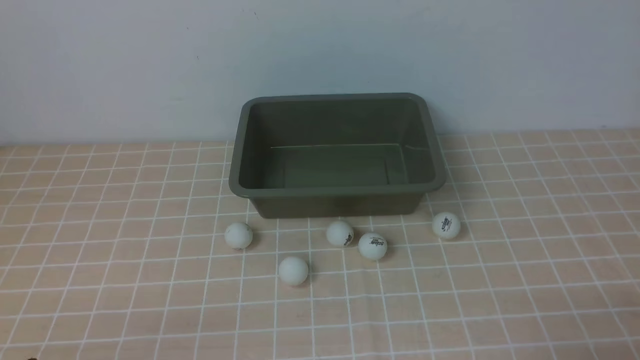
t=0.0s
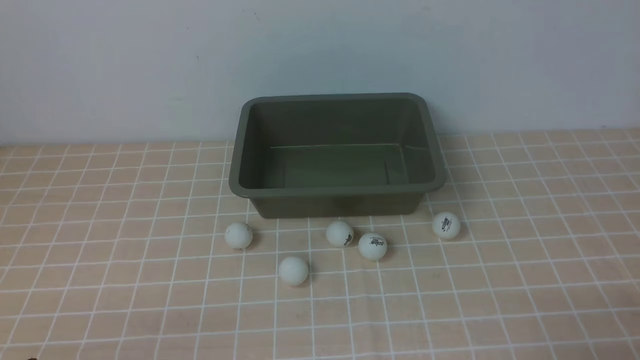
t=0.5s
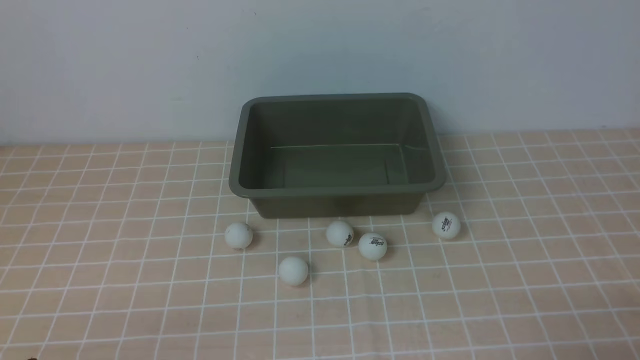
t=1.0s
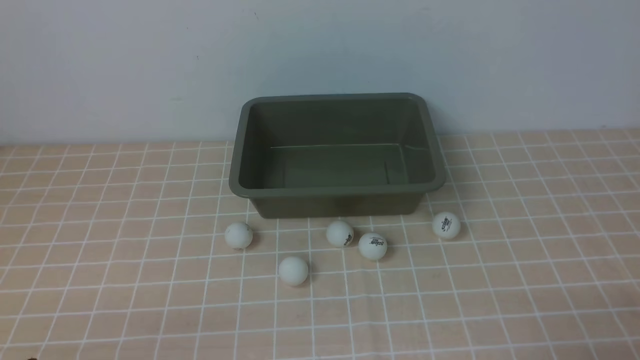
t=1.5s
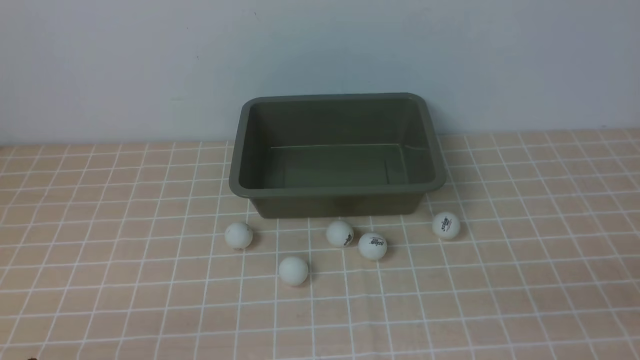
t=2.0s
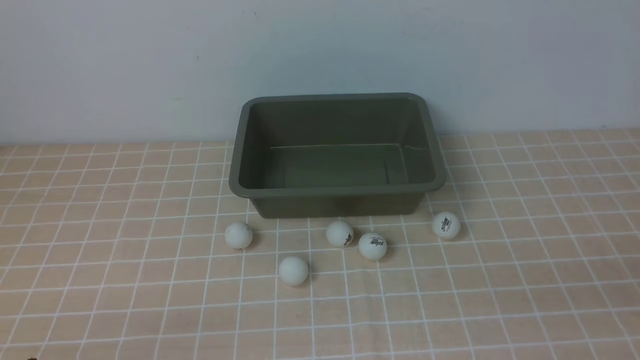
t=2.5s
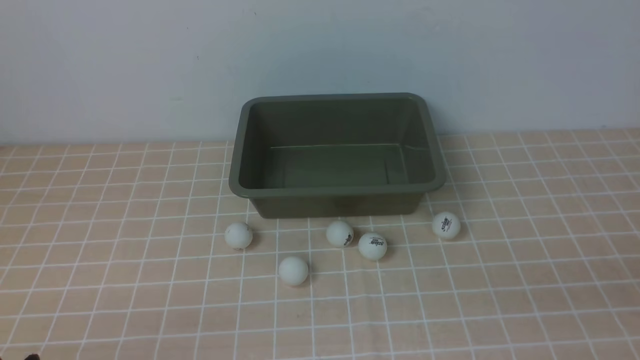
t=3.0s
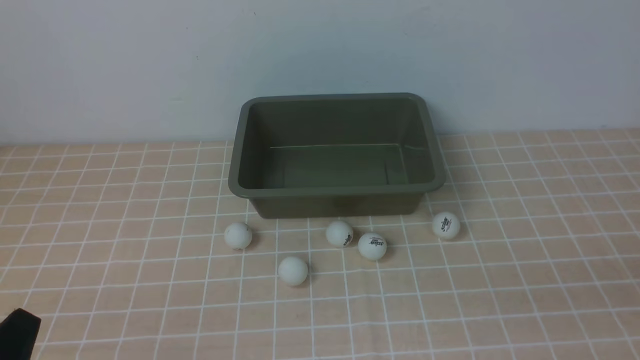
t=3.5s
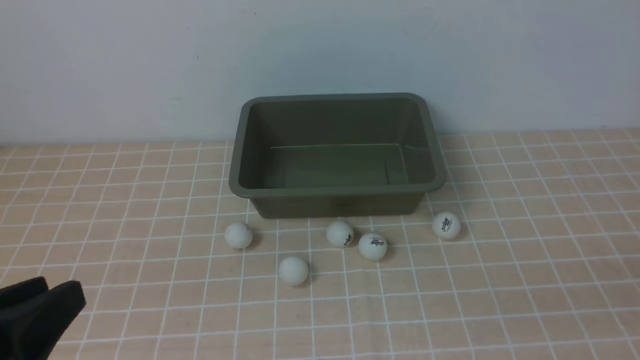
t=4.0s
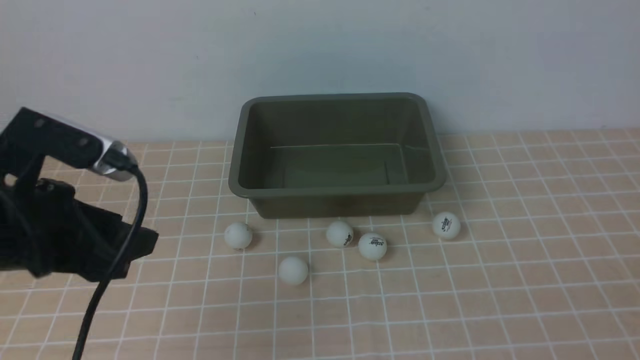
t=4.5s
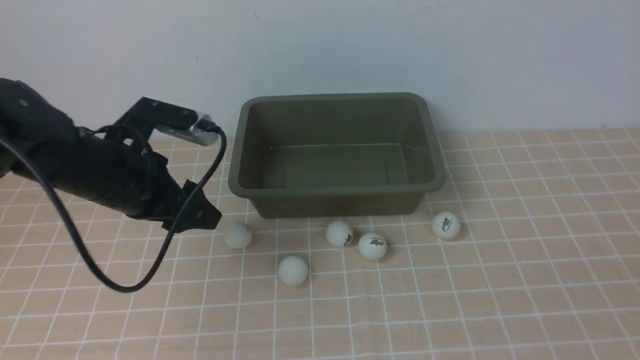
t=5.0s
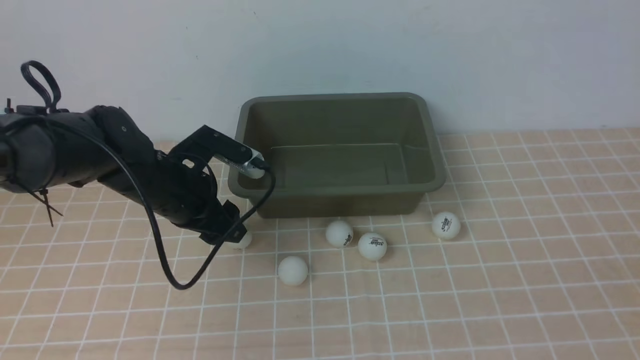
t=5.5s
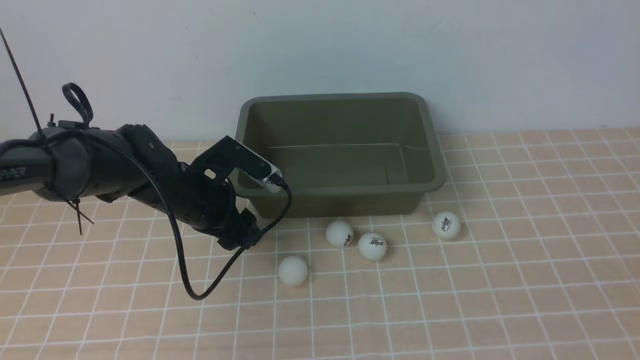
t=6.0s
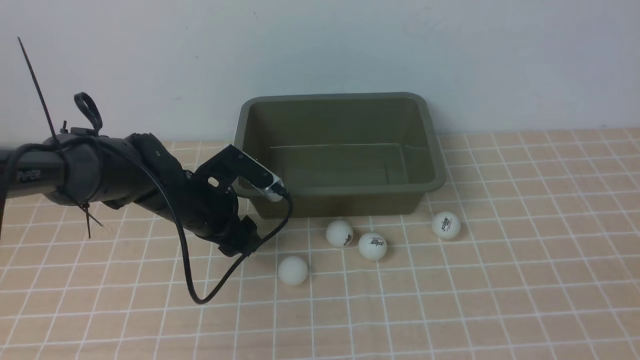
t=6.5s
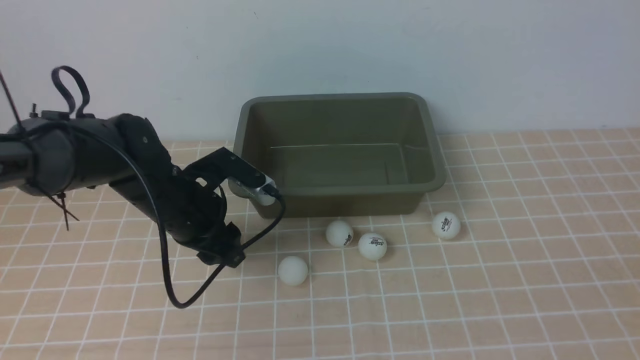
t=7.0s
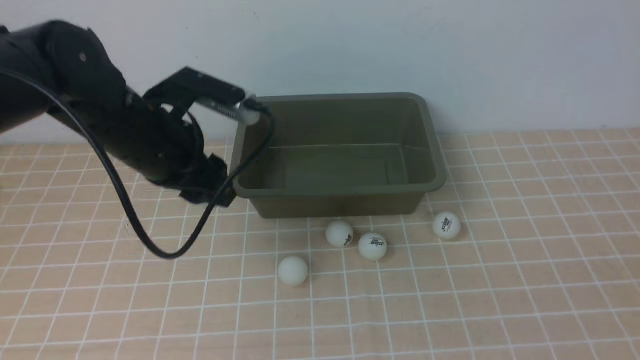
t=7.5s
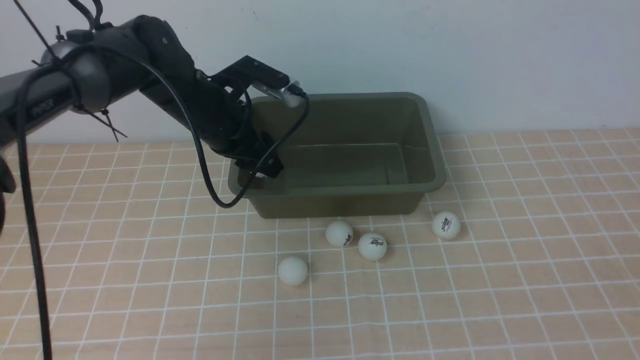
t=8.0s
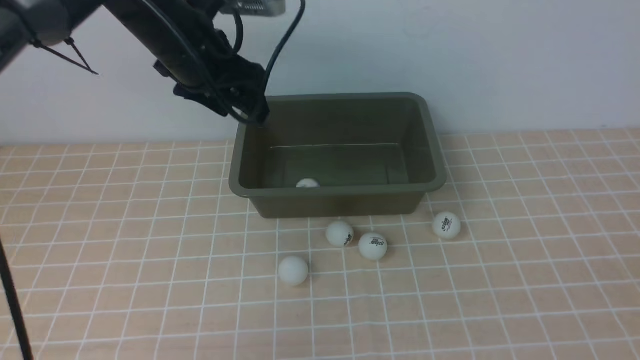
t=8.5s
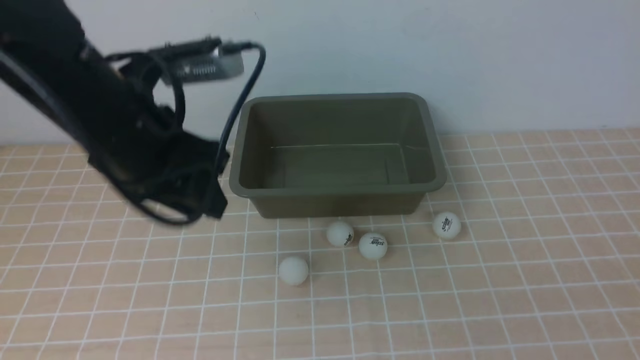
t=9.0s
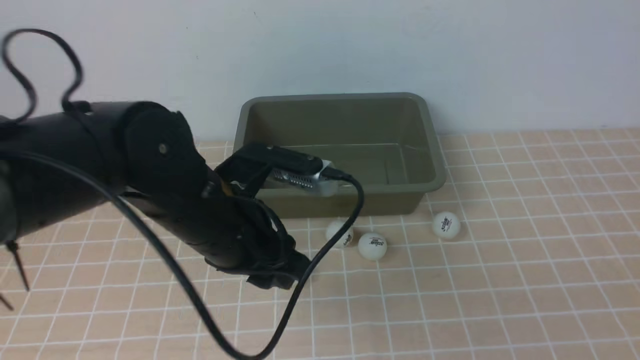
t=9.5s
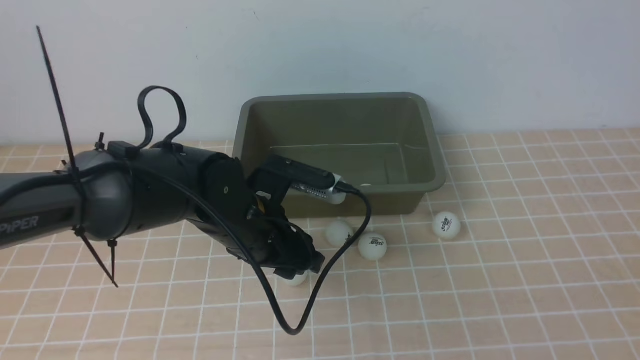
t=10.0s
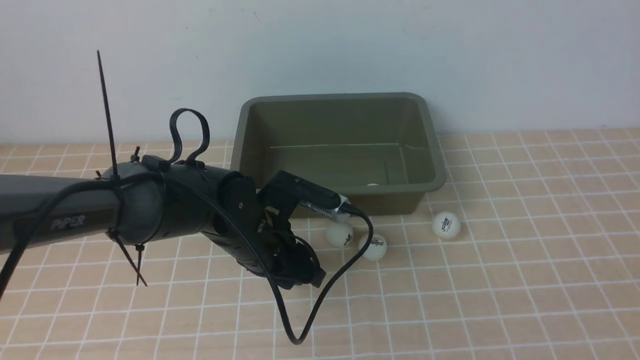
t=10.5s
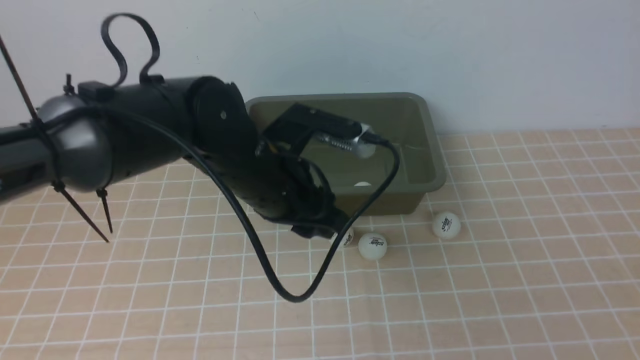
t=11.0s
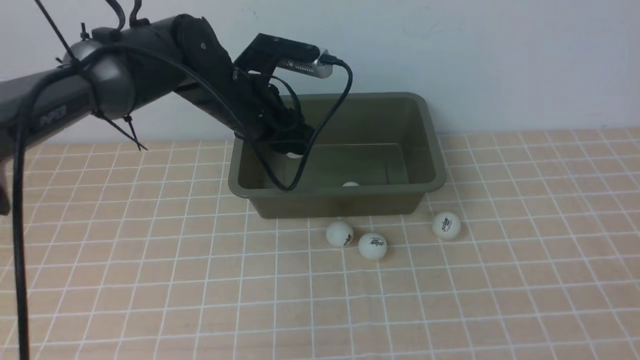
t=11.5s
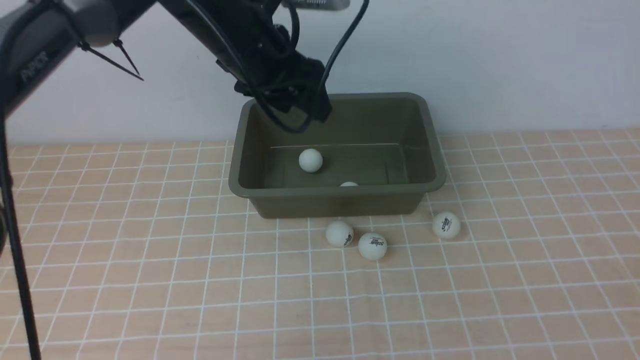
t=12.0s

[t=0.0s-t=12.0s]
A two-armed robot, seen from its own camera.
Step, t=0.0s to t=7.0s: use the left arm to clamp the table tennis ball closest to it.
Step, t=7.5s to t=8.5s: use the left arm to put the table tennis ball into the box.
Step, t=9.0s to t=11.0s: use the left arm to clamp the table tennis ball closest to it.
t=2.0s to t=4.0s: The left gripper goes roughly 15 cm upward.
t=4.0s to t=6.0s: The left gripper shifts roughly 35 cm forward and downward, and opens.
t=6.0s to t=8.0s: The left gripper is displaced upward and forward by some 10 cm.
t=8.0s to t=10.0s: The left gripper goes approximately 15 cm backward, downward and to the right, and closes and opens again.
t=10.0s to t=12.0s: The left gripper goes roughly 20 cm upward and forward.

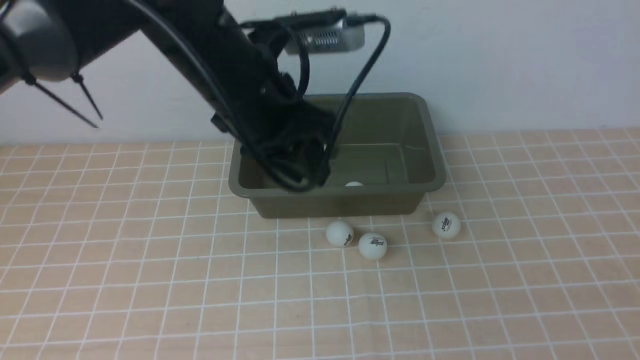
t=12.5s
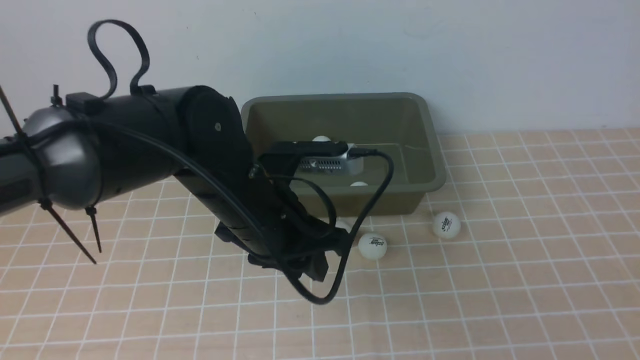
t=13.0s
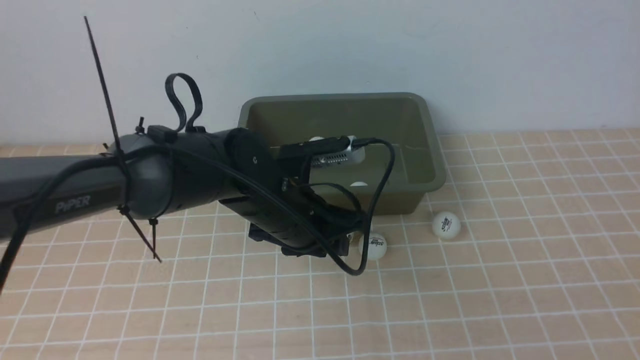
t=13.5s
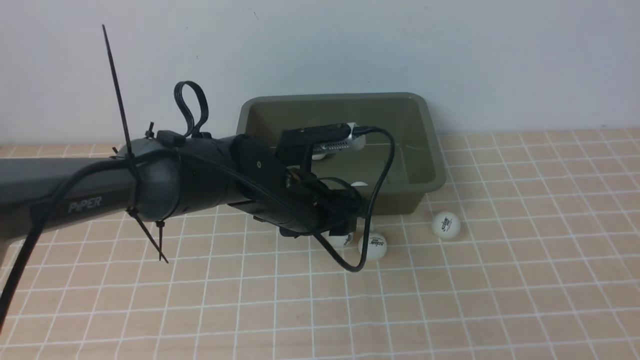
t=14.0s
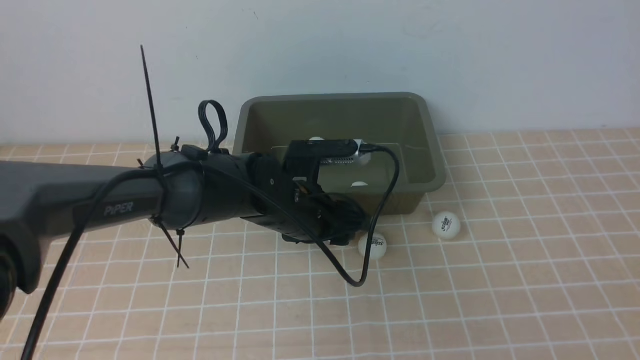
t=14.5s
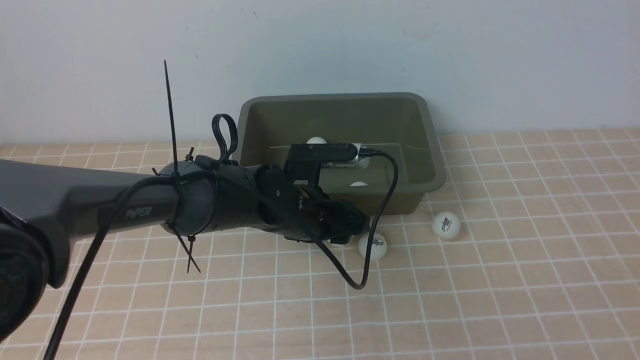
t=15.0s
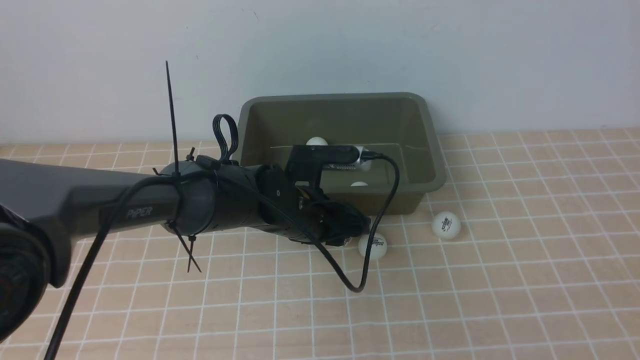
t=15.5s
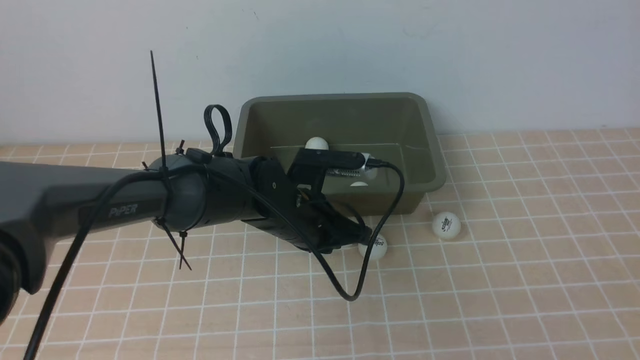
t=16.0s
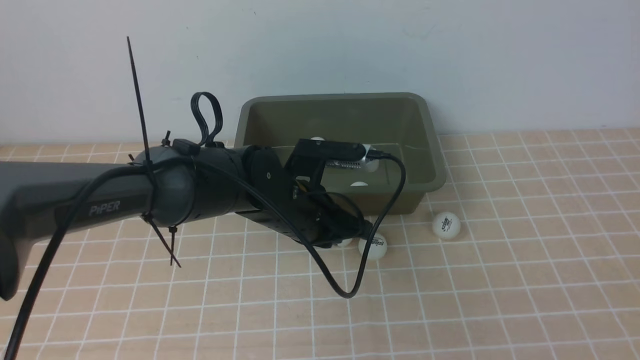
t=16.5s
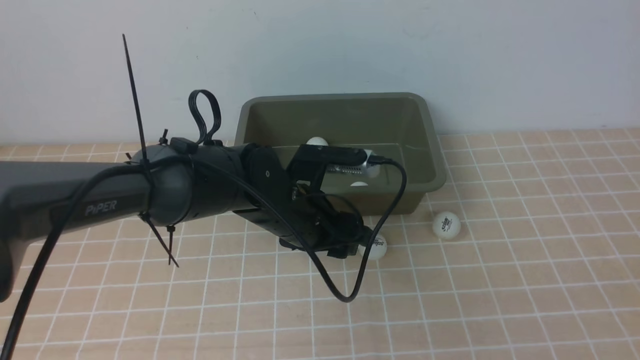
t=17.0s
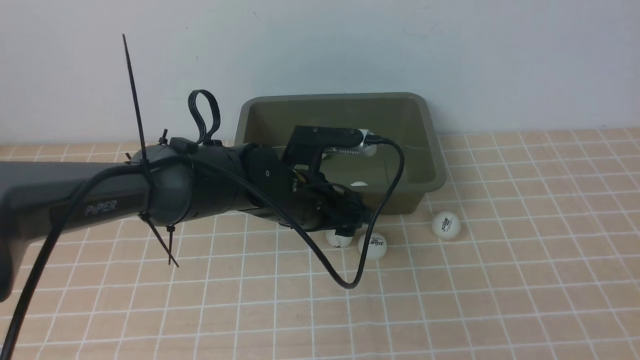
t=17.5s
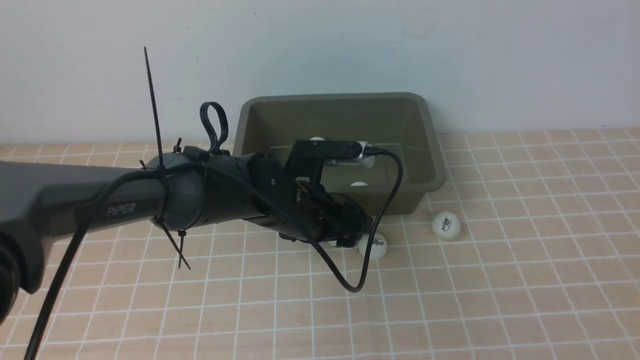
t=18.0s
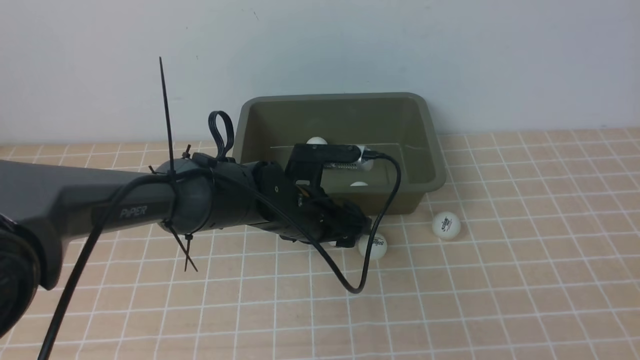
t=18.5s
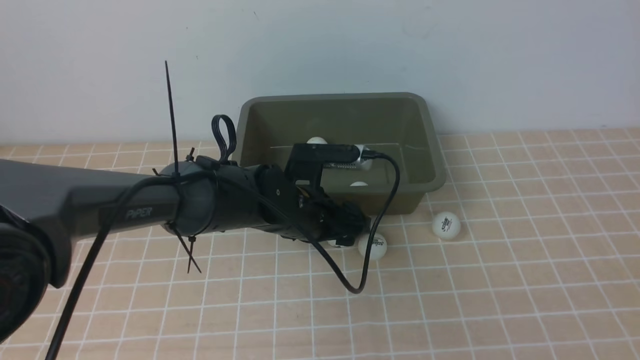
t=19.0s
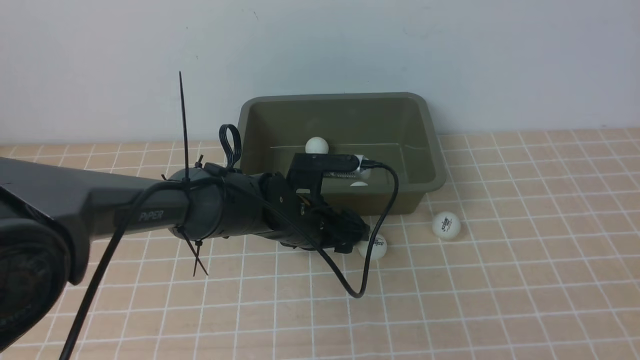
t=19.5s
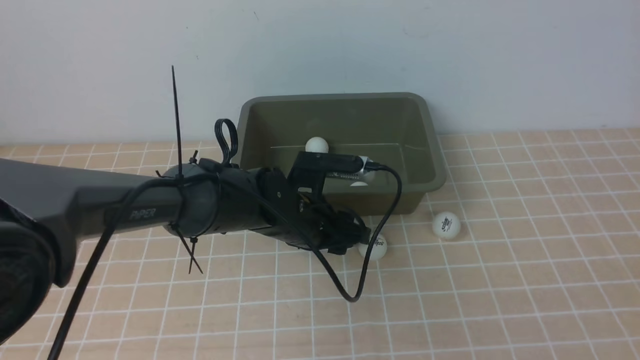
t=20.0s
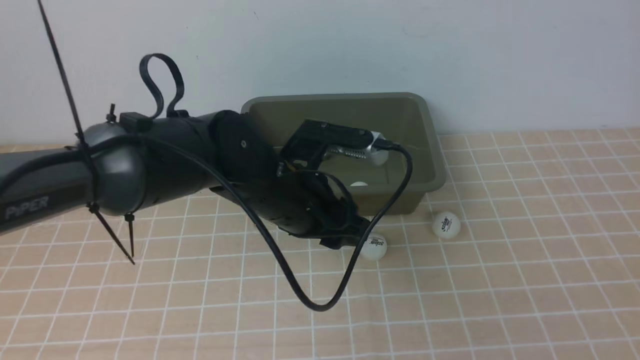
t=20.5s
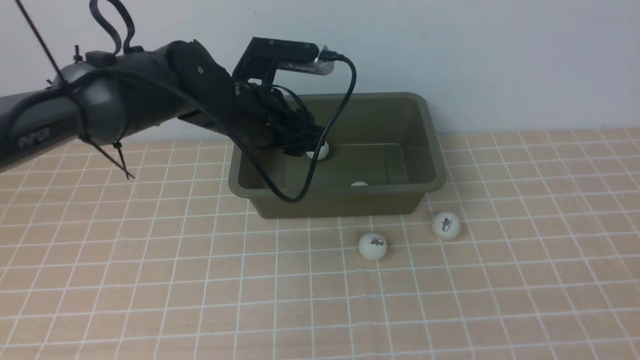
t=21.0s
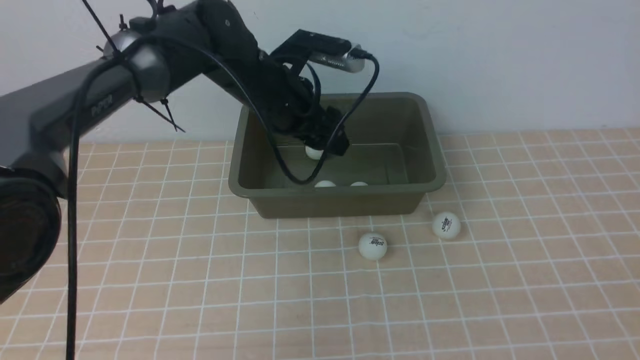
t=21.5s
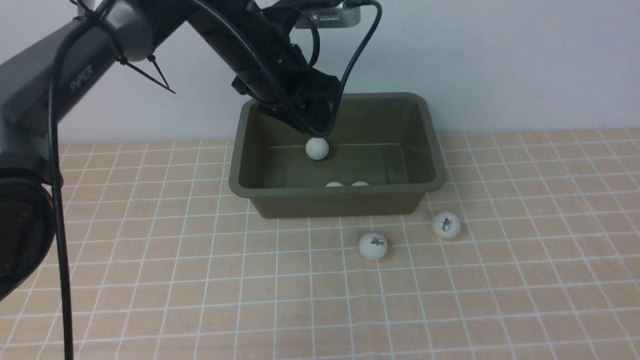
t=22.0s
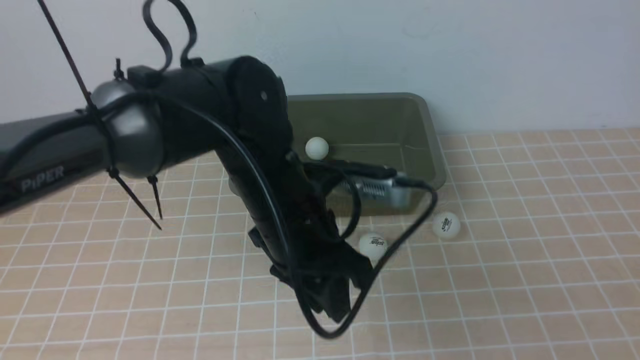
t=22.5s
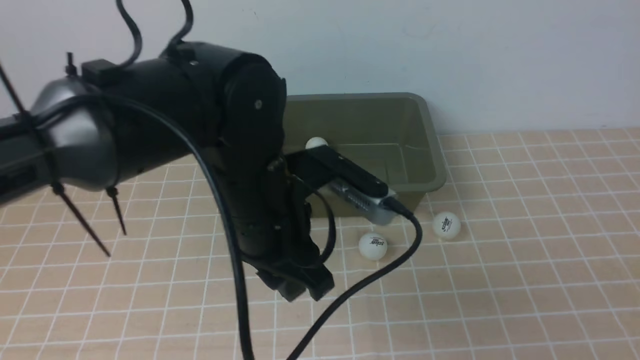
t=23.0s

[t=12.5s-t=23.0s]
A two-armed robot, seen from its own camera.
Step, t=12.5s to t=20.0s: use the left arm to clamp the table tennis ball closest to it.
Step, t=21.0s to t=21.5s: use the left arm to put the table tennis ball into the box.
t=12.5s to t=14.5s: The left gripper moves downward, about 15 cm, and opens.
t=14.5s to t=16.5s: The left gripper closes up.
t=16.5s to t=19.0s: The left gripper opens its fingers.
t=19.0s to t=21.0s: The left gripper heads upward, covering roughly 10 cm, and closes up.
t=21.0s to t=23.0s: The left gripper goes roughly 15 cm backward, and closes up.
